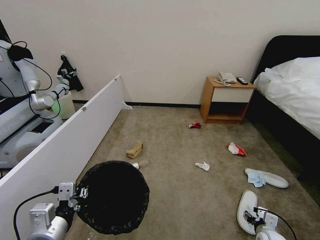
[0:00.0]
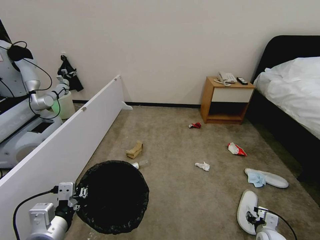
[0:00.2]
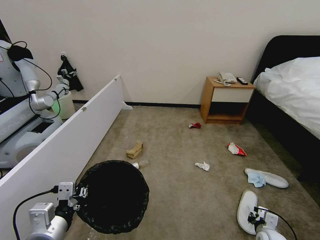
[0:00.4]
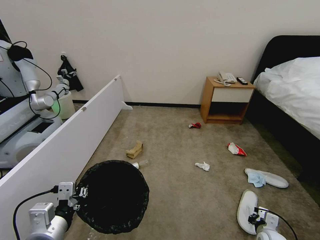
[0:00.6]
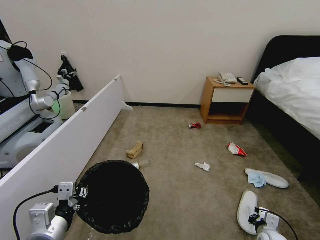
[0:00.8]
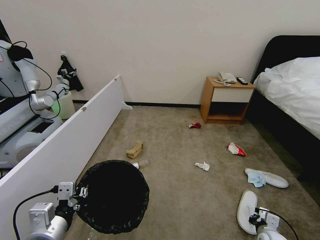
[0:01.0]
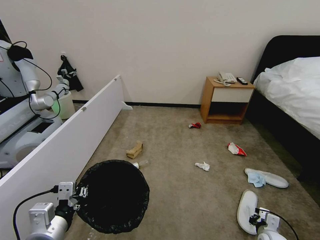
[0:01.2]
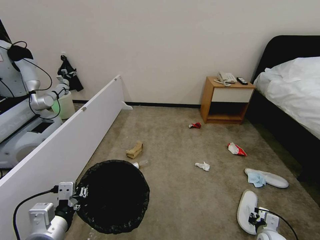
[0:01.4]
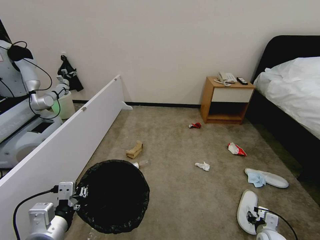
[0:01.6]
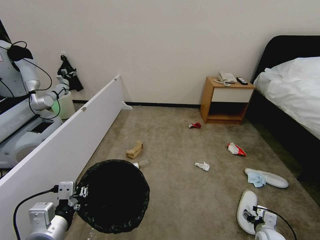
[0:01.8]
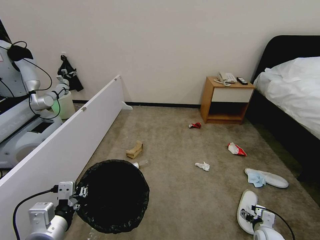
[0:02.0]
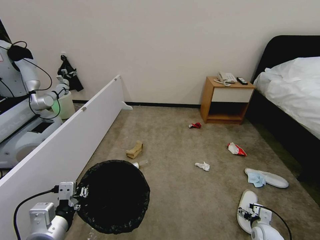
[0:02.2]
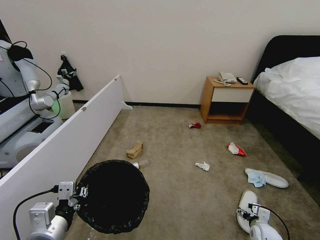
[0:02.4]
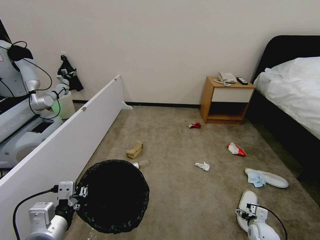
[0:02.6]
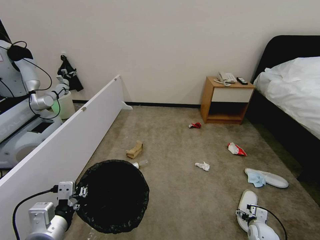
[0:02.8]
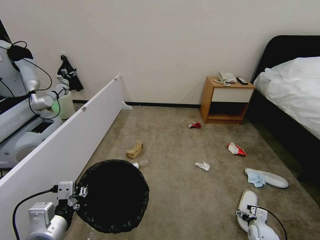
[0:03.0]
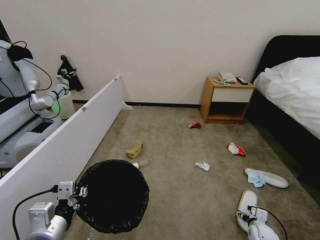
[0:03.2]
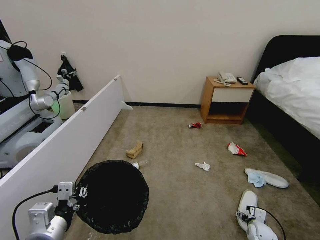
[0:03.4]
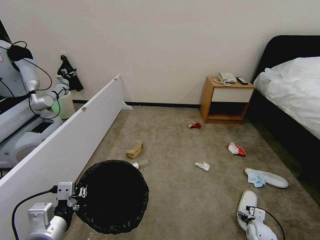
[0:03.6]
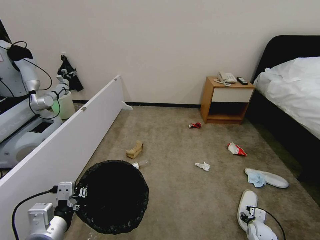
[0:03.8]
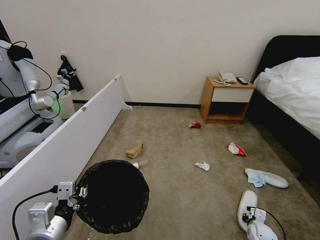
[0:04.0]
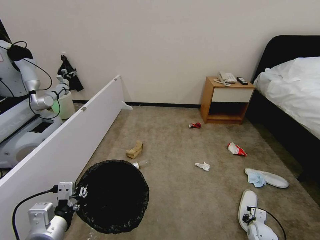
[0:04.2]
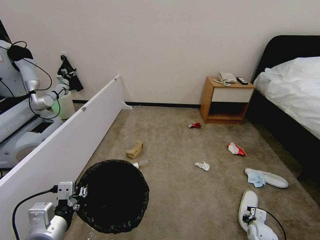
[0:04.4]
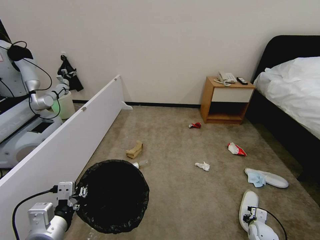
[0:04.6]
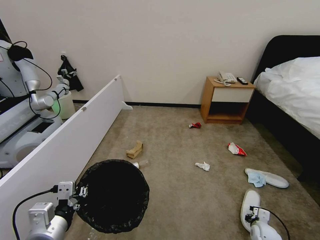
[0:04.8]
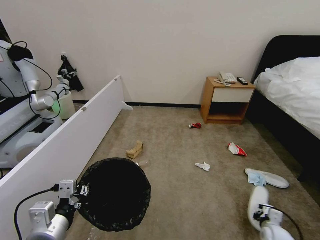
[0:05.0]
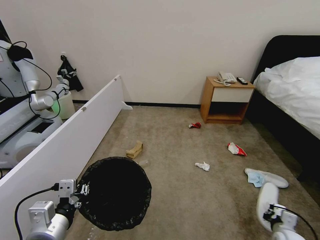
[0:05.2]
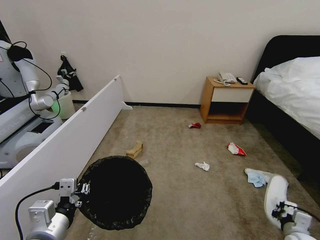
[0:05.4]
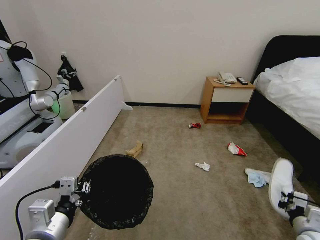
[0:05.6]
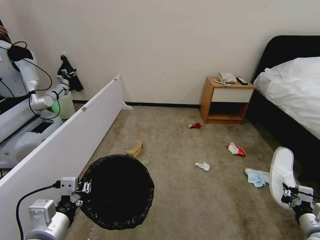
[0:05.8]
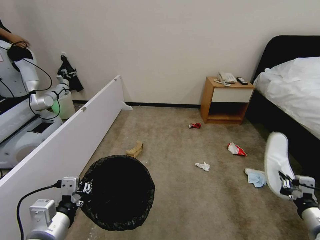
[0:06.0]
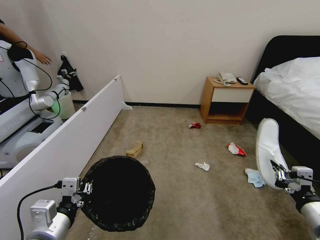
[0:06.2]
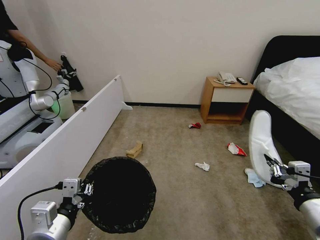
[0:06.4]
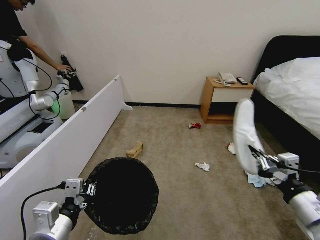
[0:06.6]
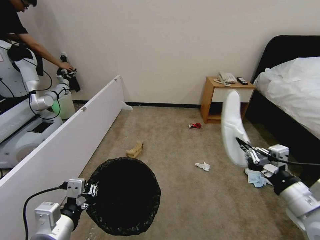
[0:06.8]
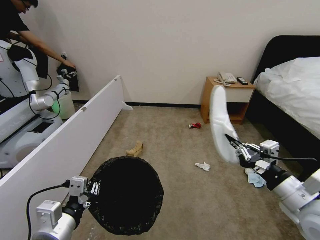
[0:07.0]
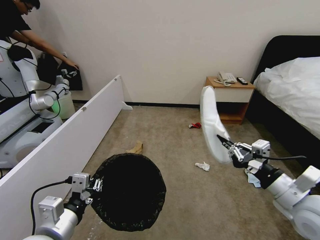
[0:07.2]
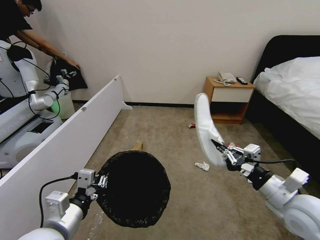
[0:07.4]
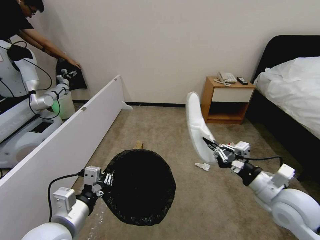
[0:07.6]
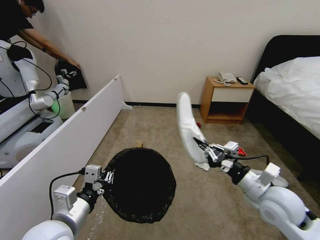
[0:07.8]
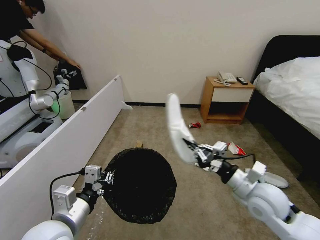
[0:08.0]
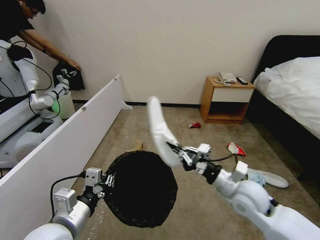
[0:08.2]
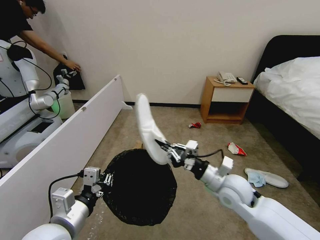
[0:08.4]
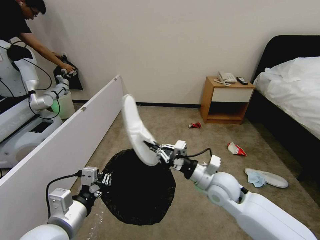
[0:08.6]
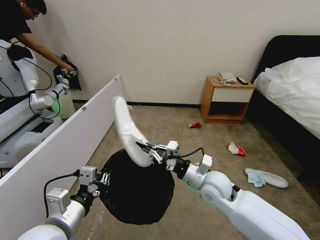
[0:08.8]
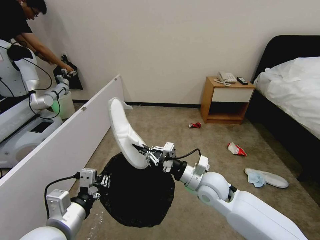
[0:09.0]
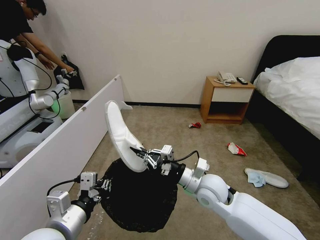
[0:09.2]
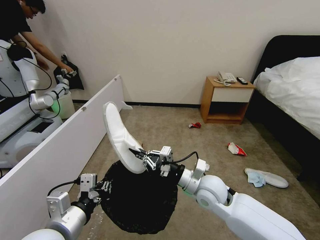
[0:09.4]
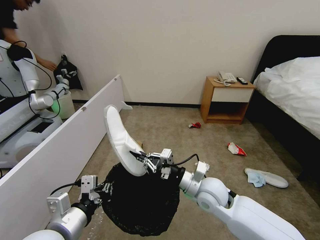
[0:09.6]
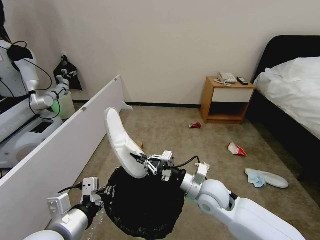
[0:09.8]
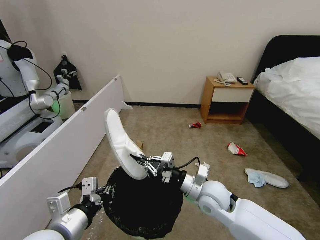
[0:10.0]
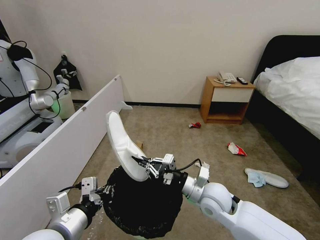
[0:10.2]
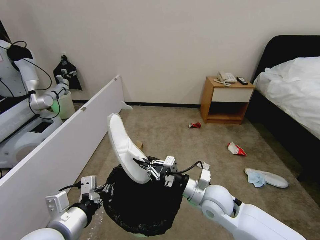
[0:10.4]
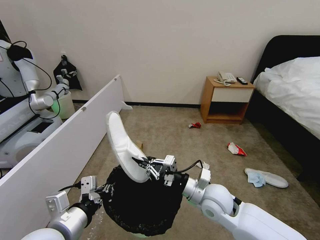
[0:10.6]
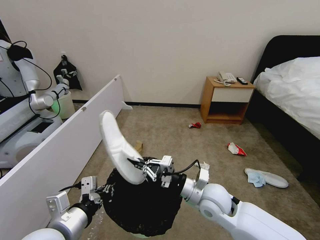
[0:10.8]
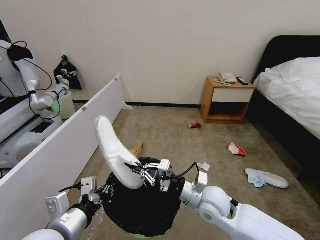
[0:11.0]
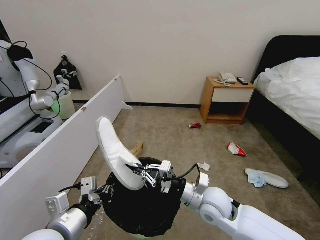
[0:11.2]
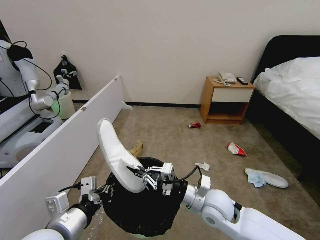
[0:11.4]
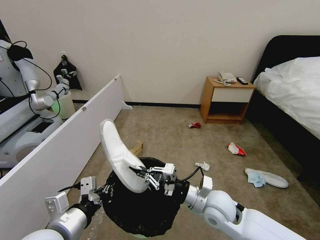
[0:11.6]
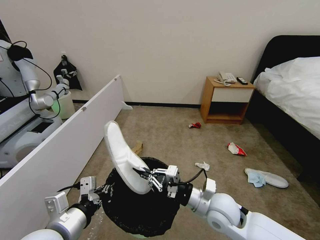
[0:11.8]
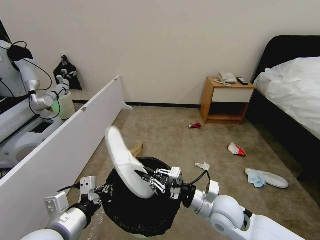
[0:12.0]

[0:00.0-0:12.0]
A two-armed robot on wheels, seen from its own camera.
Task of the whole recording: Pick up the trash bin, then pick up the garbage from the floor and place it into the trash bin.
0:01.6 to 0:03.0: The right gripper ends up roughly 5 cm from where it was, and opens.
0:04.4 to 0:06.0: The right gripper is displaced upward and backward by about 30 cm.
0:06.0 to 0:07.6: The right gripper is displaced to the left, forward and upward by some 15 cm.
0:07.6 to 0:09.0: The right gripper moves to the left and forward, some 20 cm.
0:09.0 to 0:10.4: The grippers make only small movements.
0:10.4 to 0:12.0: The grippers move only a little.

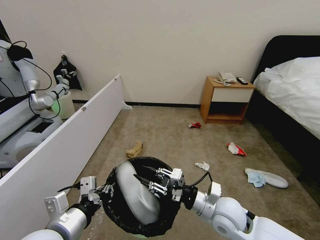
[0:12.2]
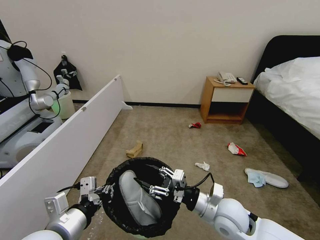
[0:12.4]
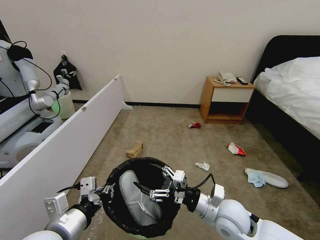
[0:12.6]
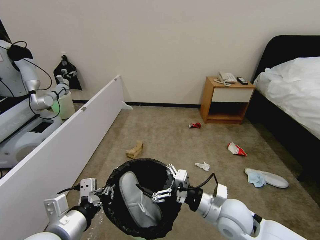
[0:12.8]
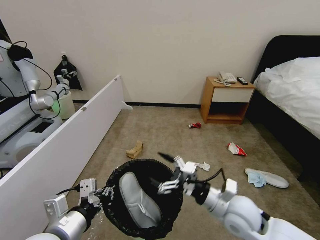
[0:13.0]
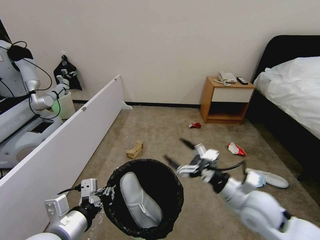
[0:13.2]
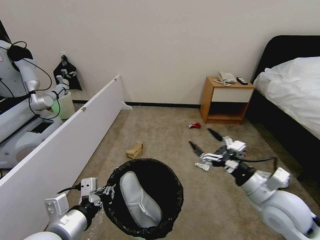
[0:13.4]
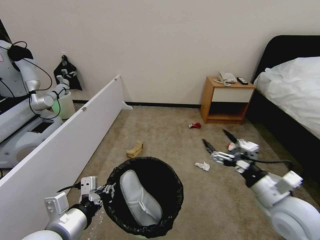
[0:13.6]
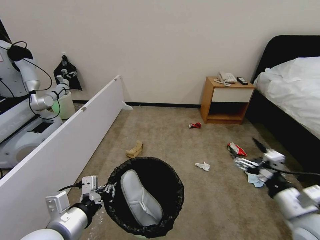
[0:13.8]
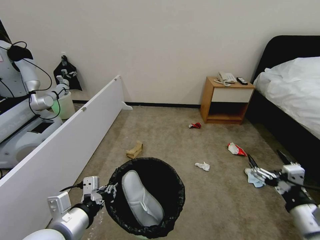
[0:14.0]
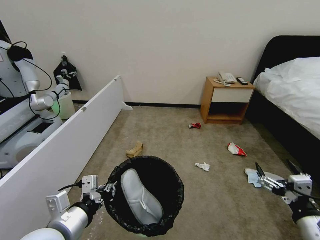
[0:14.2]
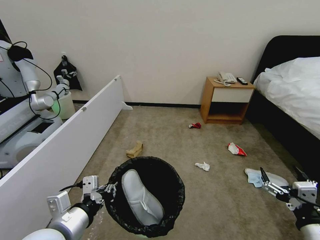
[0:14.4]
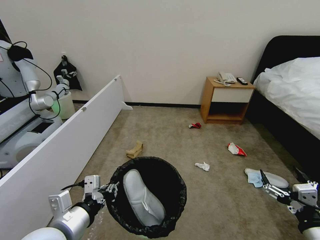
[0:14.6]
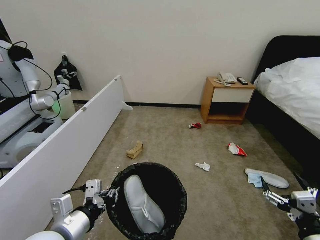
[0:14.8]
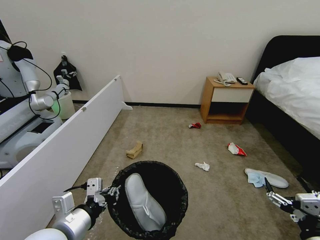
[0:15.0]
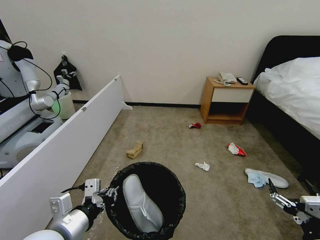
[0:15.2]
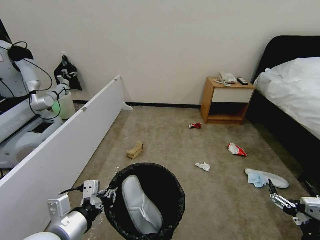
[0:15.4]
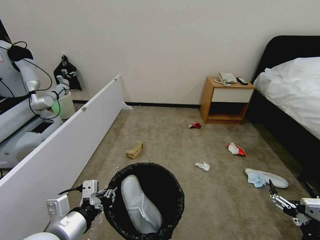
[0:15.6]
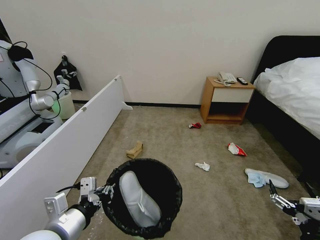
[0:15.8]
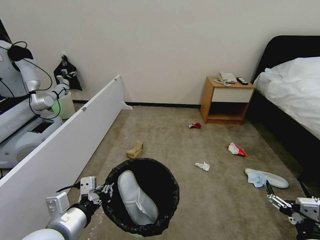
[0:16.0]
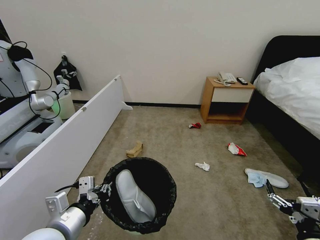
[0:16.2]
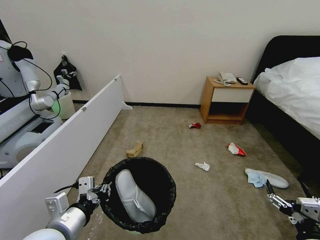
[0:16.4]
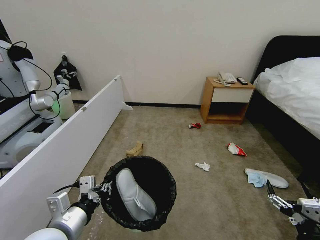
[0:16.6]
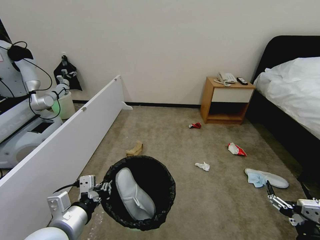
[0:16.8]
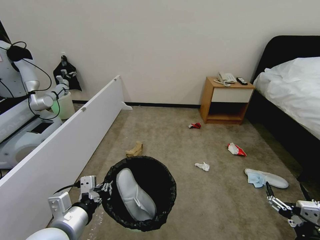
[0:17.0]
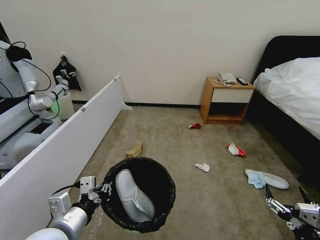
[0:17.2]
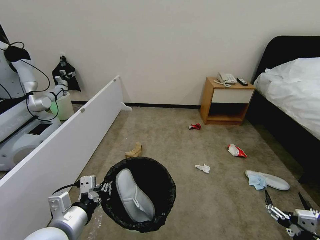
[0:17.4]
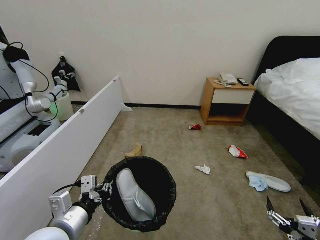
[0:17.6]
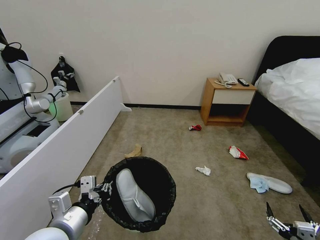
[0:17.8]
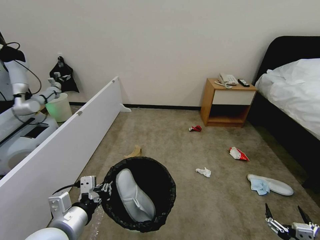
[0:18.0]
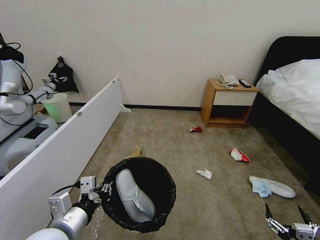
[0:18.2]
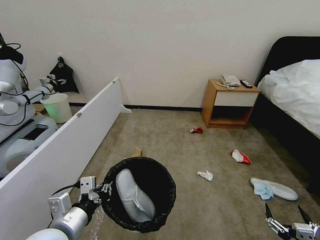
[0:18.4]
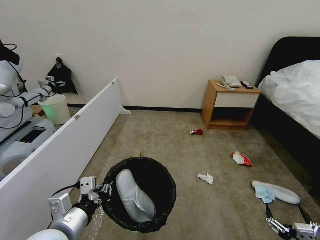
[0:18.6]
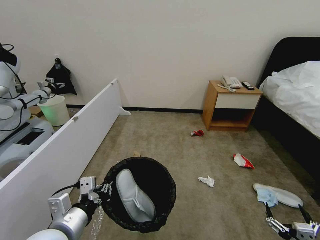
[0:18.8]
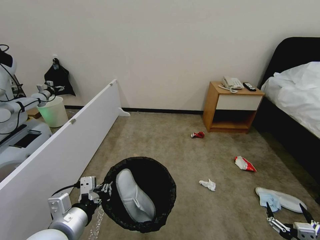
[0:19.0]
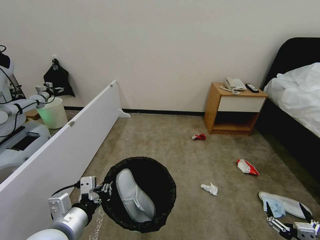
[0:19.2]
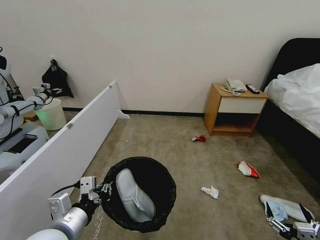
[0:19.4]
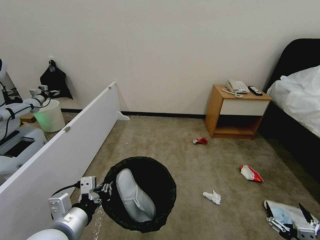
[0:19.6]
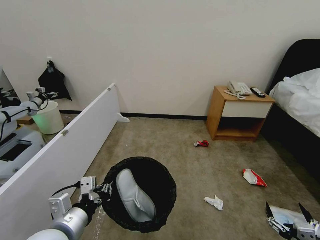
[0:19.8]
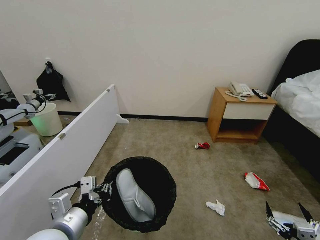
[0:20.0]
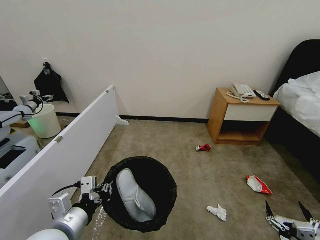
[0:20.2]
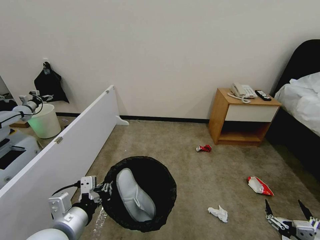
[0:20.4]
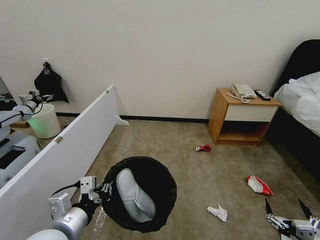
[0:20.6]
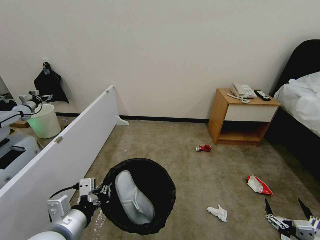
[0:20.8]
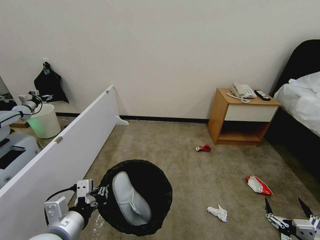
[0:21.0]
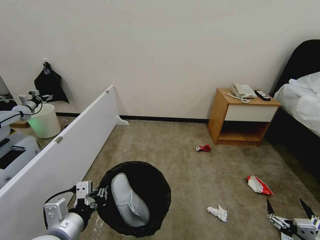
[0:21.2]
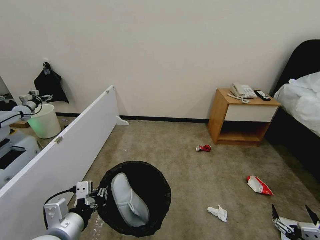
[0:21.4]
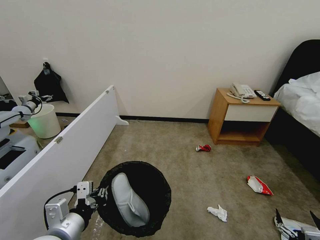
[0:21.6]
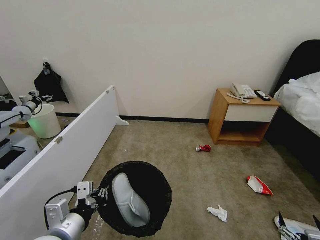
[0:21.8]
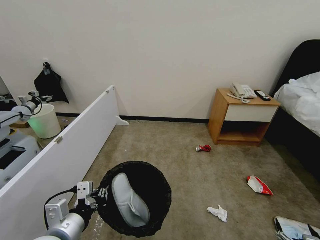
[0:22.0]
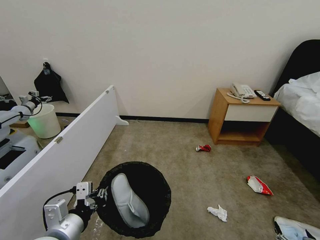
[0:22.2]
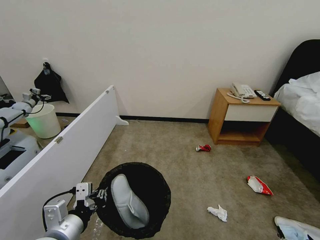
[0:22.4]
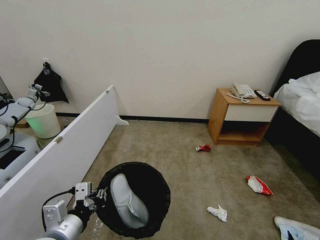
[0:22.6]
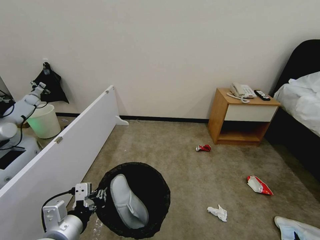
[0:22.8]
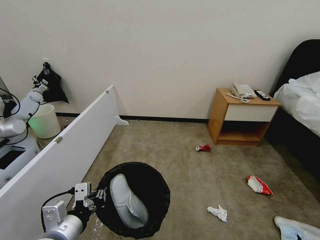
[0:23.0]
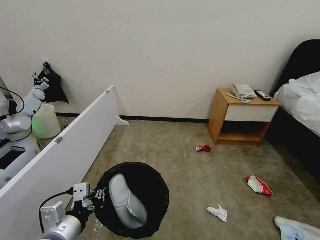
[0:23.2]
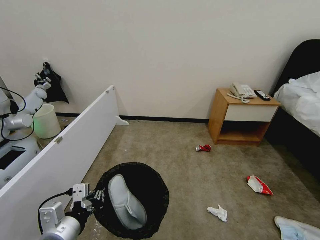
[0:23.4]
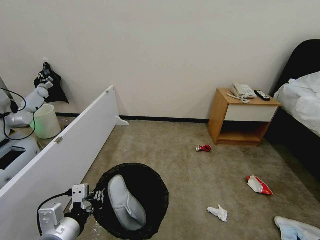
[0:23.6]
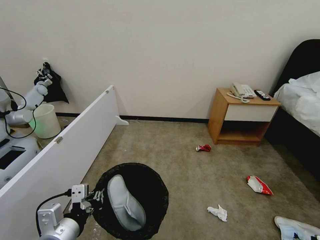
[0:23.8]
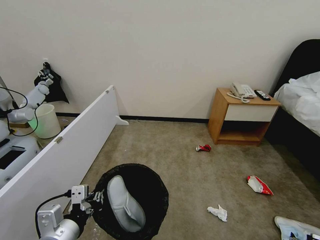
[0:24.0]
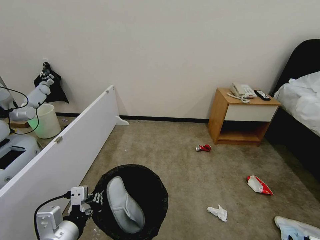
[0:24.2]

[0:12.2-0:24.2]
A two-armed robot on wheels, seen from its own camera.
Task of the whole recording: Pick up the trash bin, then pick up the garbage from the floor and place it into the trash bin.
0:12.2 to 0:13.8: The right gripper moves to the right and backward, about 20 cm, and opens its fingers.
0:13.8 to 0:15.2: The right gripper moves backward and downward, about 10 cm.
0:15.2 to 0:16.6: There are only small adjustments of the grippers.
0:16.6 to 0:18.2: The right gripper goes some 5 cm downward.
0:19.8 to 0:21.2: Neither gripper changes place.
0:21.2 to 0:22.6: The right gripper goes roughly 10 cm to the right and downward.
0:22.6 to 0:24.2: The right gripper moves forward, to the right and downward, about 15 cm.
